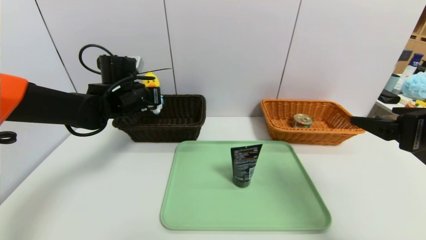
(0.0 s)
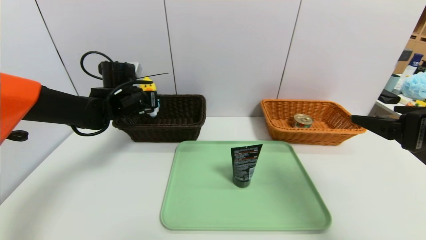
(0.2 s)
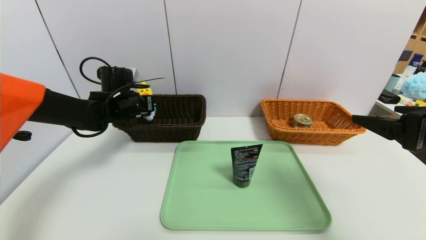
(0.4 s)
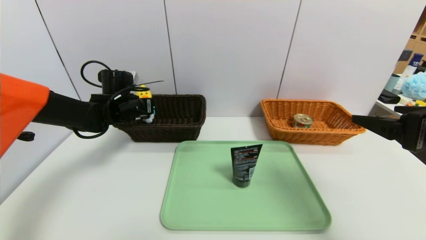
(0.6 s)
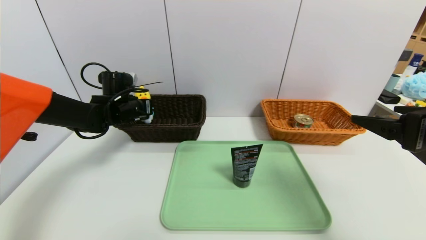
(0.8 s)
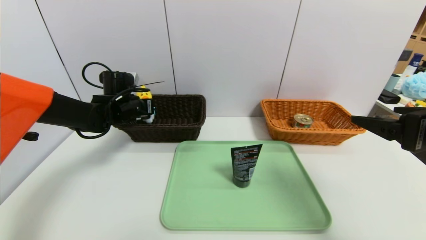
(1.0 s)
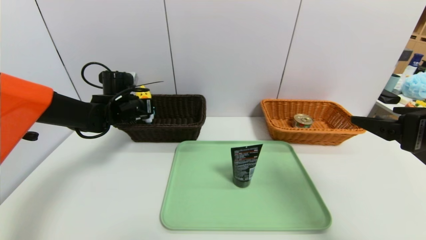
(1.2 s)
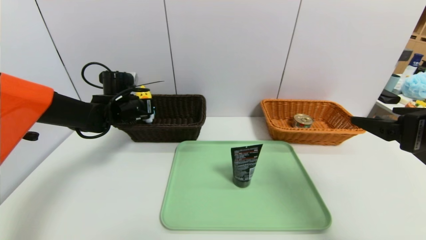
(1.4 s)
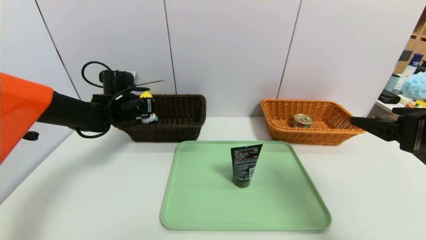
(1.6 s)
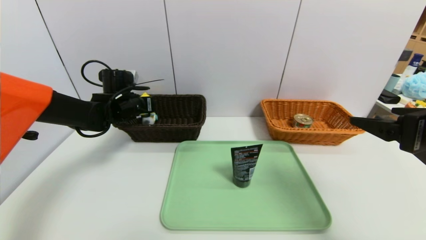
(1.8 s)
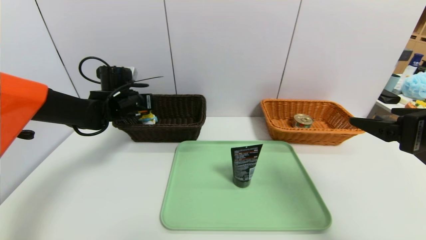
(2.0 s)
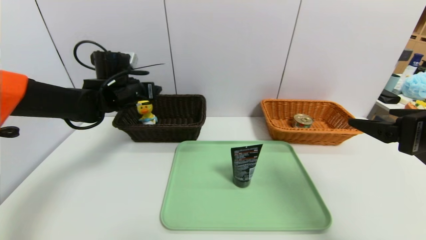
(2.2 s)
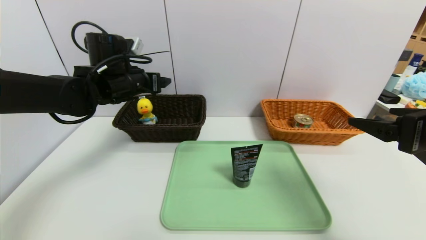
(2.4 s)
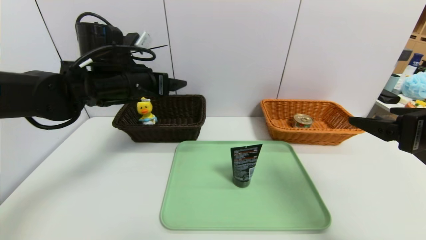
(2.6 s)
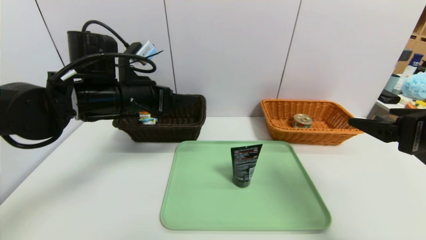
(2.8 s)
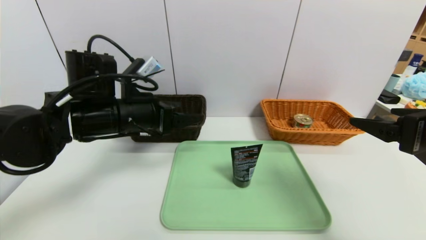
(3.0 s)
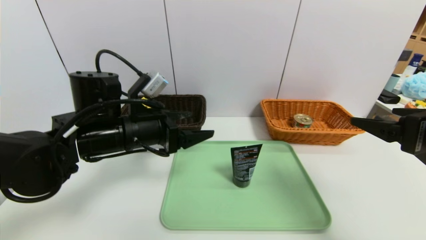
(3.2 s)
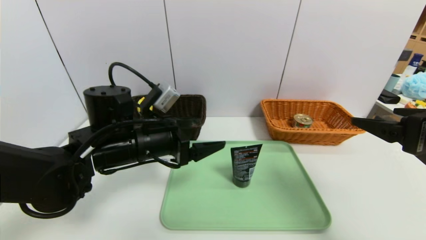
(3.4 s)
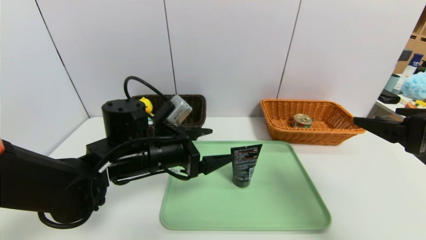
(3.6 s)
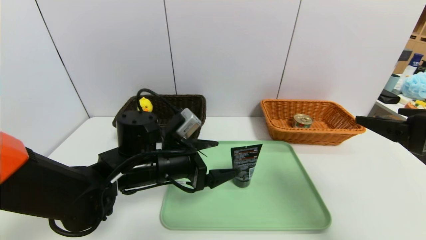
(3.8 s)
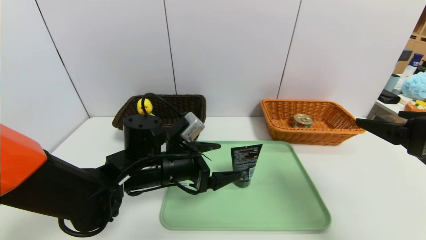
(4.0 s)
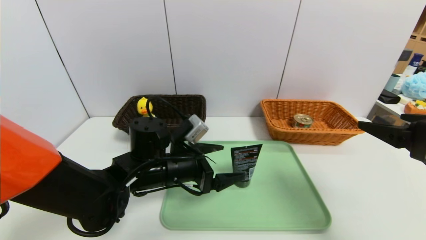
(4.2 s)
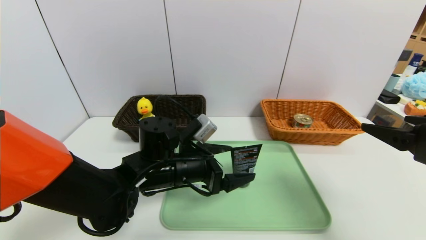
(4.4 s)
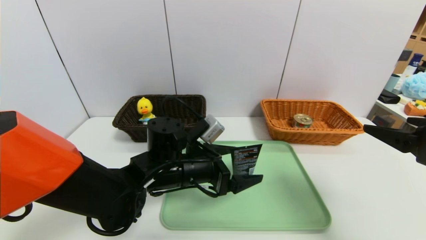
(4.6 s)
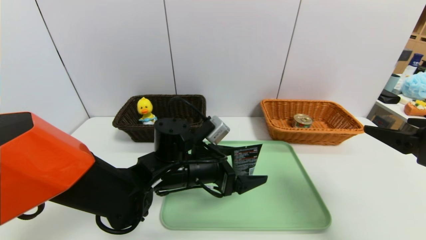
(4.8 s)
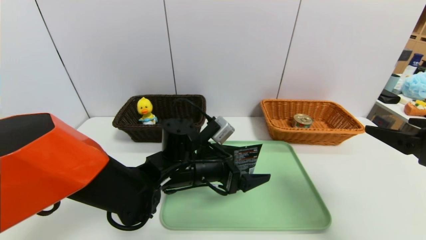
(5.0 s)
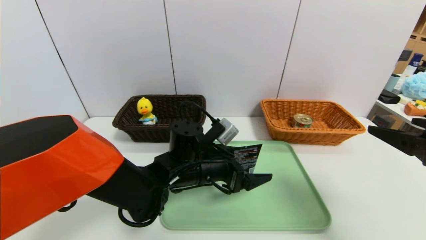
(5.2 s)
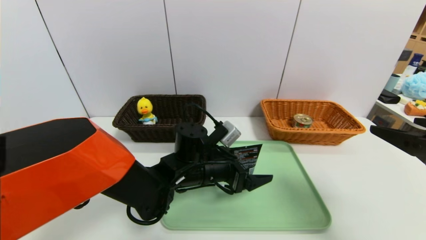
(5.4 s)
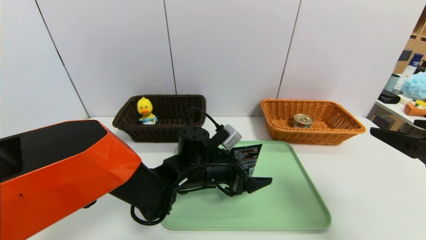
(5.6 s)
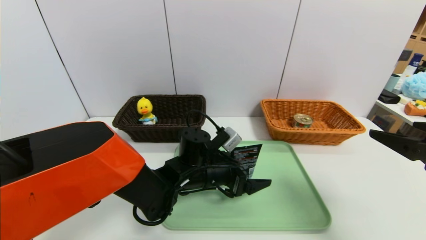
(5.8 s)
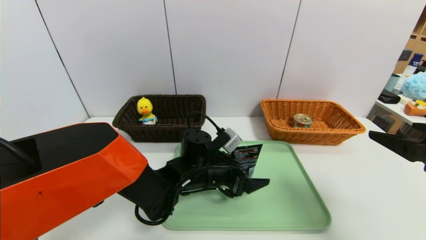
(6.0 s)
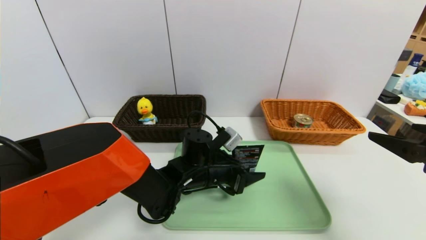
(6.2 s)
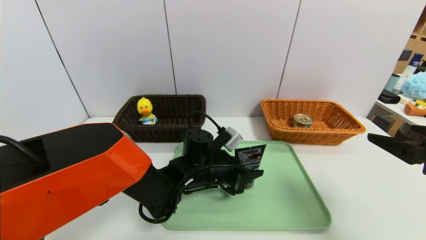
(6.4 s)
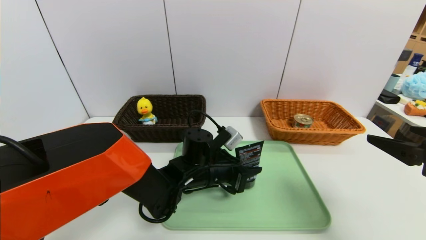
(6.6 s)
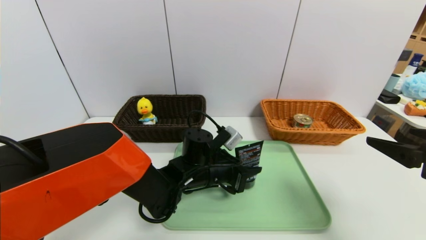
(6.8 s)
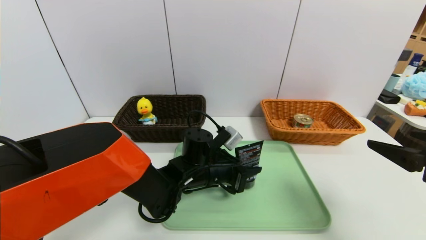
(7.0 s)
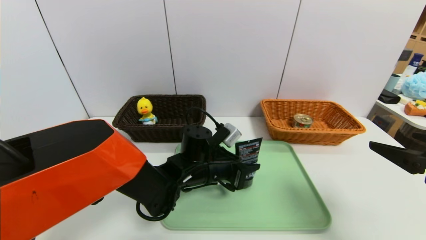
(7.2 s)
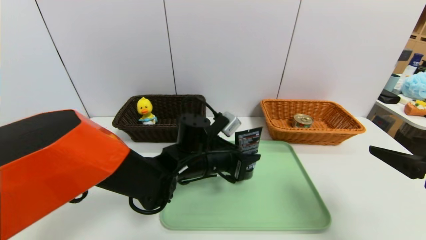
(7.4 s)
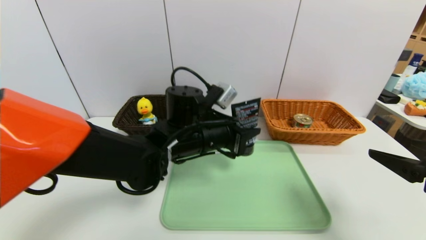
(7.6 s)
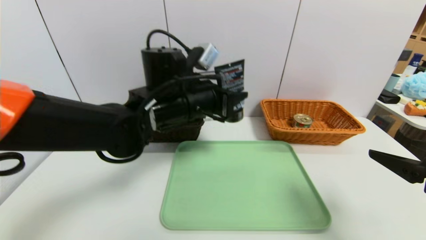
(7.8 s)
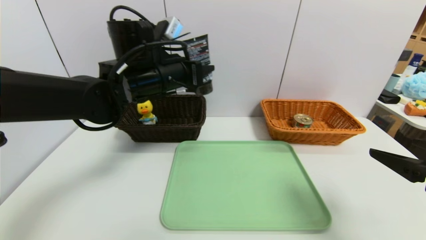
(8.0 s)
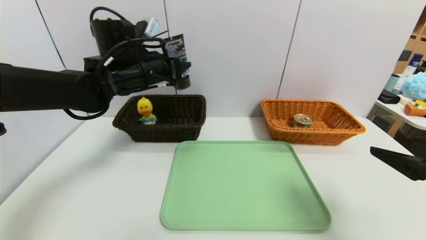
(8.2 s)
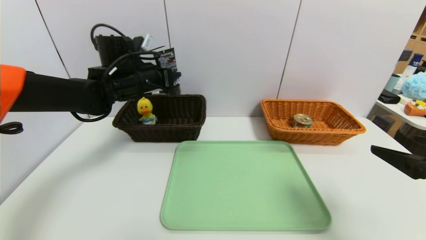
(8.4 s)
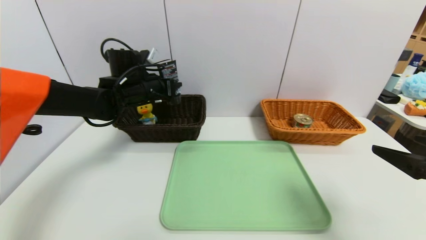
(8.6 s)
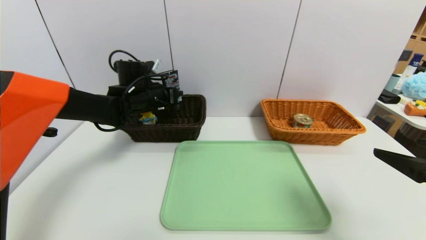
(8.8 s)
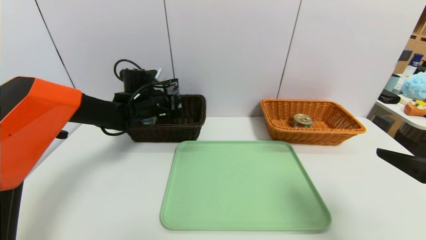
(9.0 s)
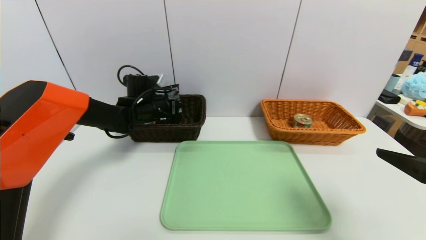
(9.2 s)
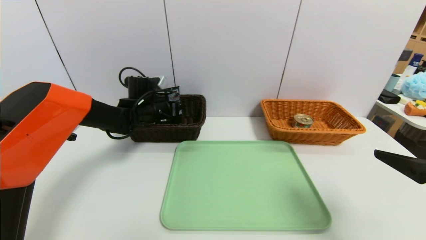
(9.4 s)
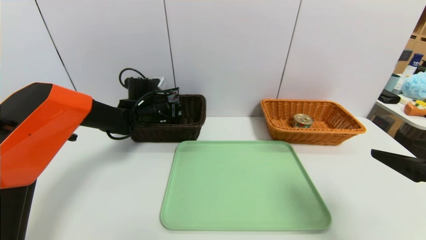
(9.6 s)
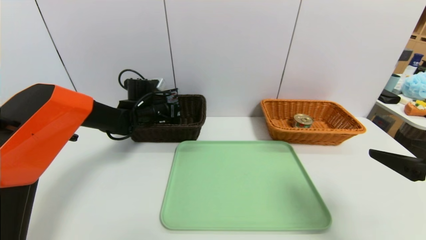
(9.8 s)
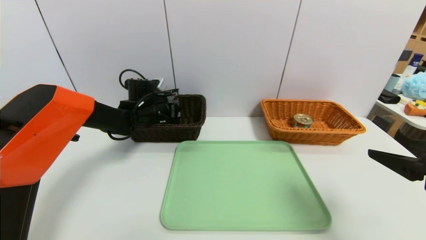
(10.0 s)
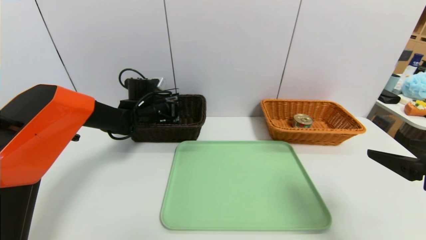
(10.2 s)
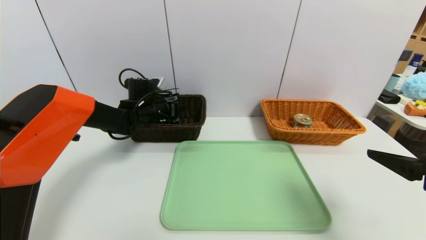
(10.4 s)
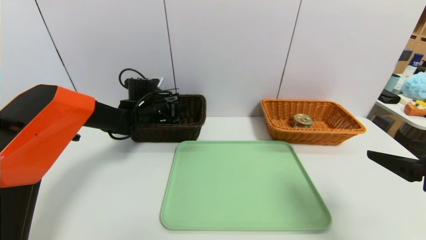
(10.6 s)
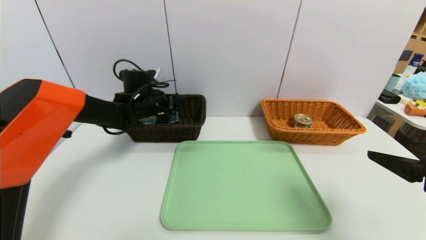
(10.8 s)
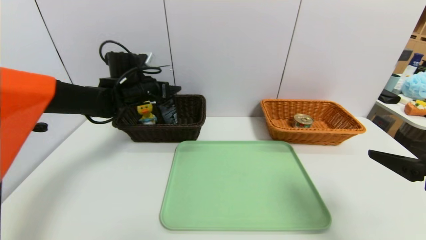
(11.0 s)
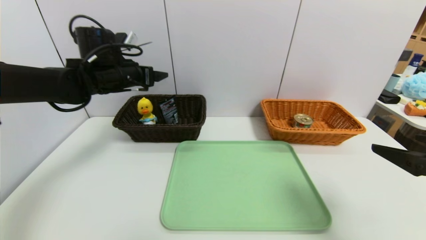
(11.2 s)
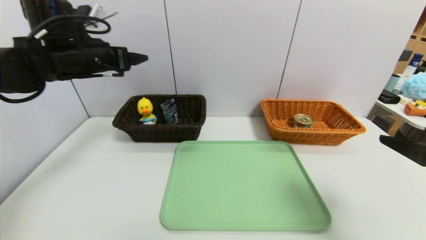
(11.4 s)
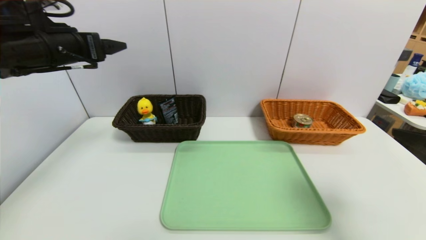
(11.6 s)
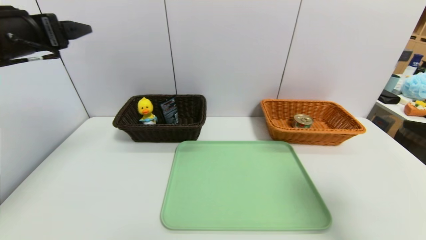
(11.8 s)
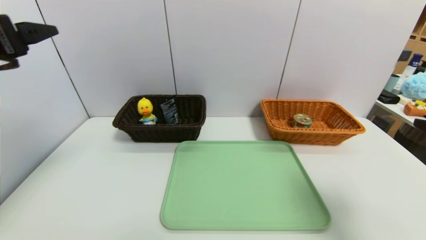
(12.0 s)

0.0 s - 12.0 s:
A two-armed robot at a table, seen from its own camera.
Task of the whole recording: place the food in the right basket with the right gripper, and place the non food items in the left basket with the left gripper.
Step, 2.0 s - 10.8 s: Grasp the soft cleanser and put it in the left basket.
0.0 s - 1.6 s: The left gripper shifts by about 5 cm, and opens up.
1.6 s - 3.0 s: The left gripper travels backward, to the right and upward by roughly 20 cm, and opens its fingers.
3.0 s - 4.4 s: The left gripper moves downward and to the right, about 15 cm.
4.4 s - 6.0 s: The left gripper goes approximately 5 cm to the right and downward.
6.0 s - 7.6 s: The left gripper moves upward, some 10 cm, and closes up.
7.6 s - 9.0 s: The left gripper goes about 20 cm forward and to the left.
9.0 s - 10.4 s: The left gripper opens up.
10.4 s - 12.0 s: The left gripper shifts about 35 cm backward, upward and to the left, and opens its fingers.

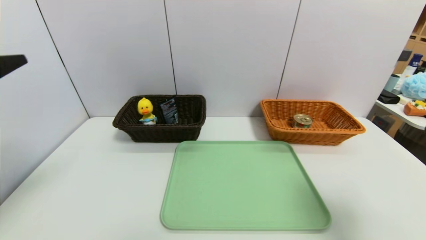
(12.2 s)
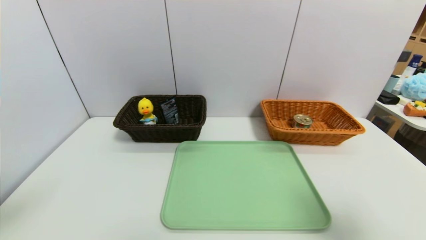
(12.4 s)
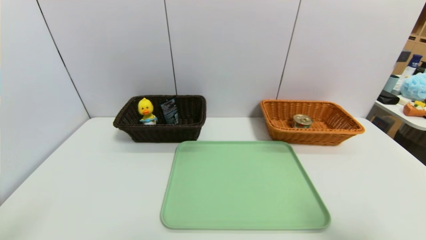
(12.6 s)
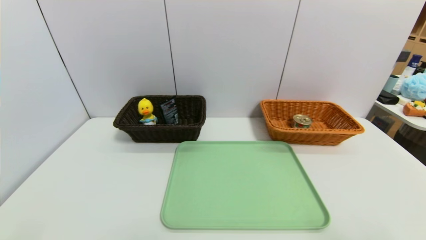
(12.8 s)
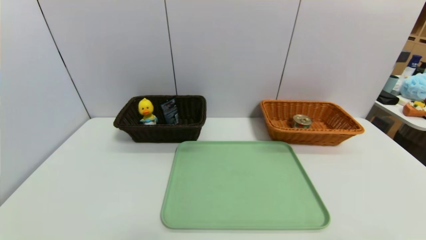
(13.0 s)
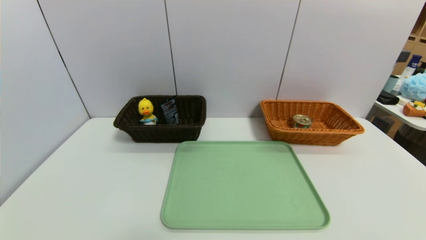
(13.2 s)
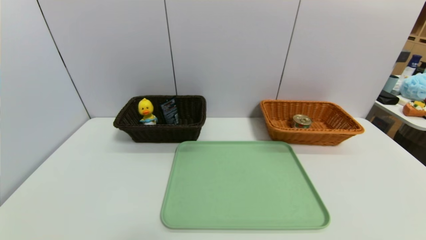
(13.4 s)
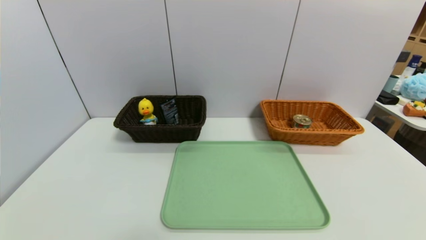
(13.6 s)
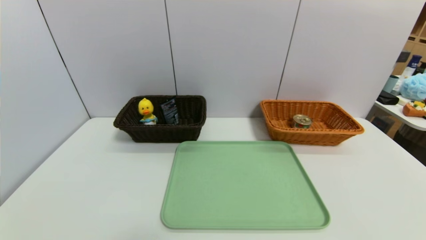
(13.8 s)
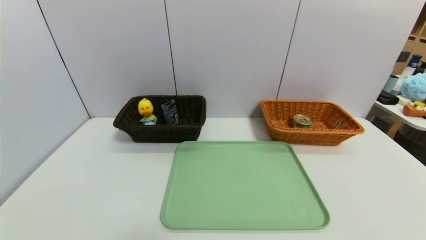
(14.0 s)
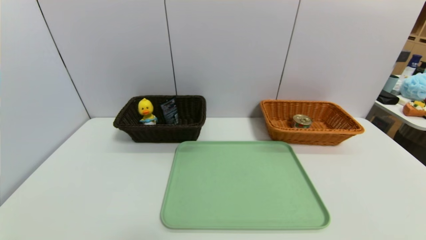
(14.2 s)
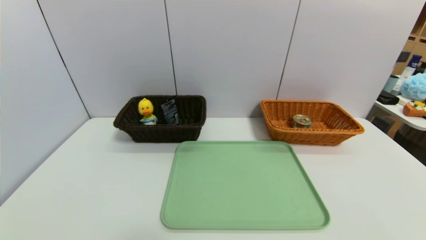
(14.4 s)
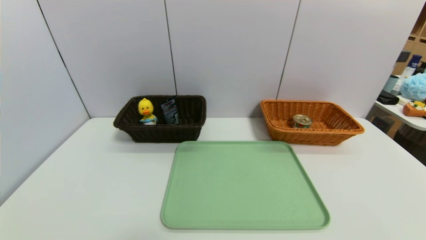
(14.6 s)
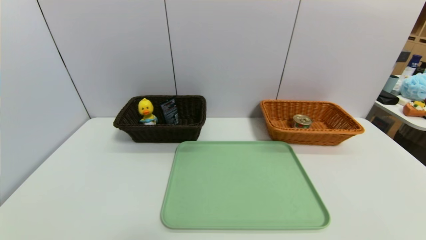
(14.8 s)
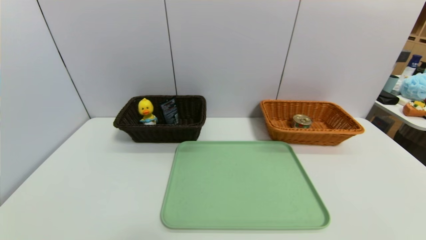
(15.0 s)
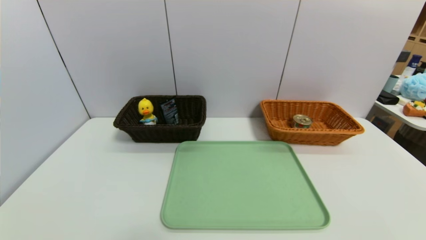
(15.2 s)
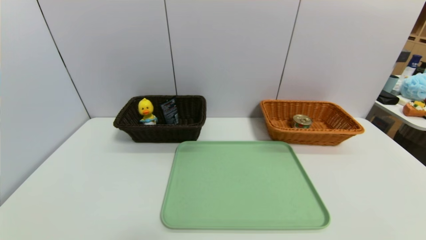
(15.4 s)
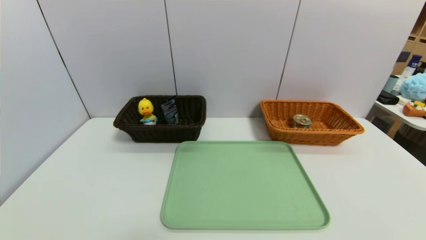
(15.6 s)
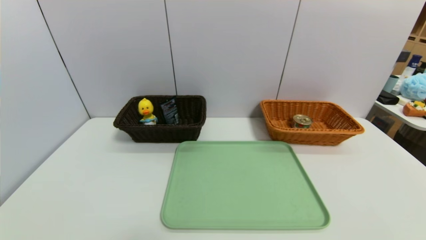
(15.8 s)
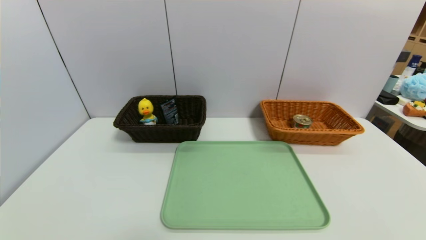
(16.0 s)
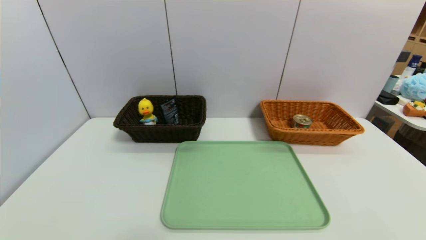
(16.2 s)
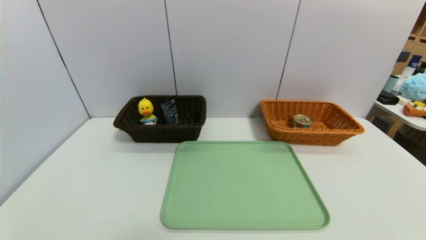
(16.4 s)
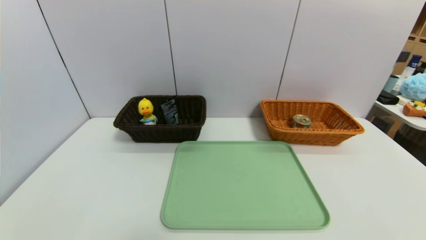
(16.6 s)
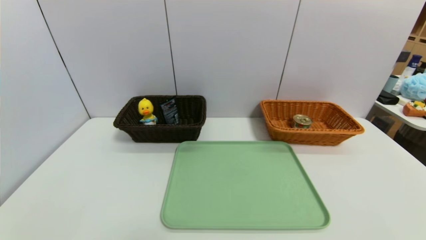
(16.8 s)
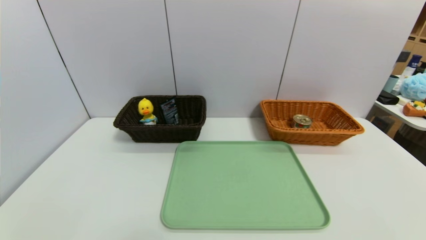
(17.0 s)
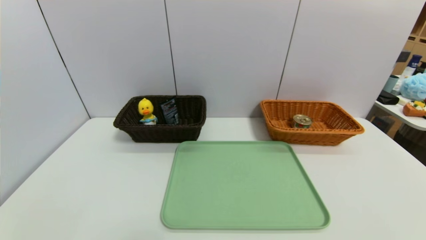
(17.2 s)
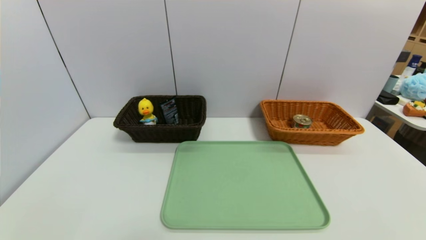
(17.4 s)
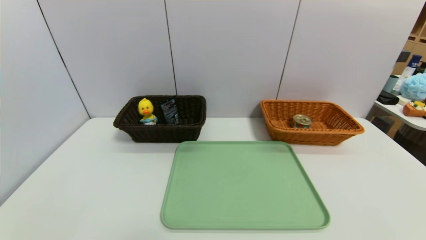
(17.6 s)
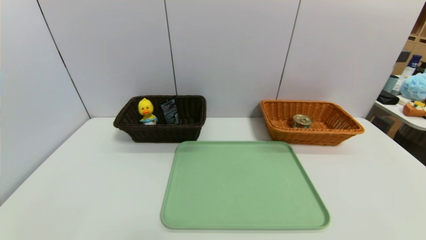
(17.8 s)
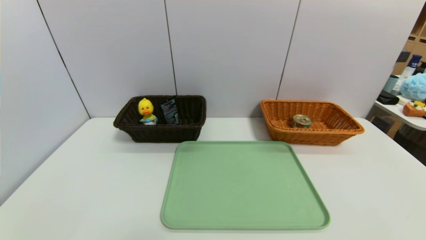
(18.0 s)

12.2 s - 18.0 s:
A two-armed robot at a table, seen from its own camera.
Task of the whole recording: place the food in the right basket with the right gripper, and place the non food items in the left basket with the left gripper.
12.2 s - 13.6 s: Both grippers move backward and downward, roughly 20 cm.
15.0 s - 18.0 s: Both grippers stay put.
